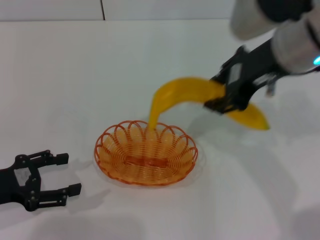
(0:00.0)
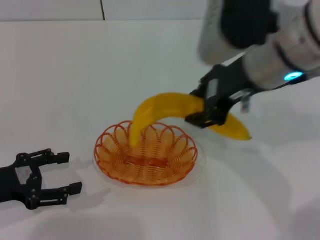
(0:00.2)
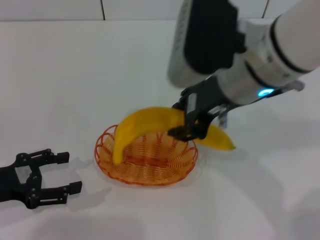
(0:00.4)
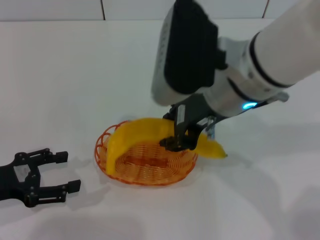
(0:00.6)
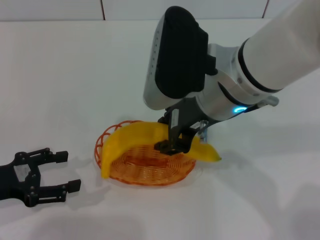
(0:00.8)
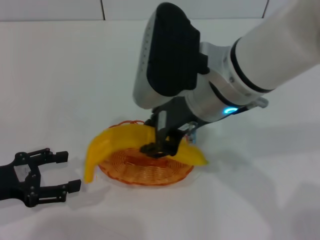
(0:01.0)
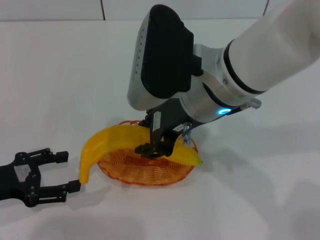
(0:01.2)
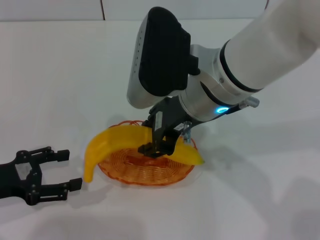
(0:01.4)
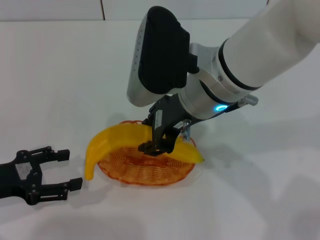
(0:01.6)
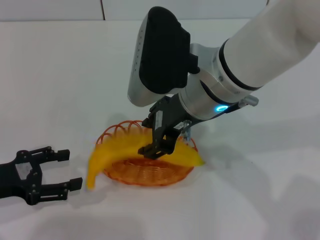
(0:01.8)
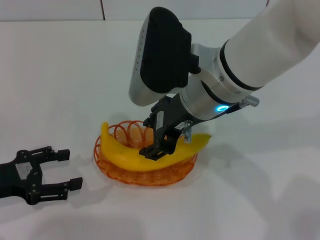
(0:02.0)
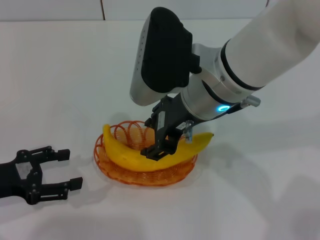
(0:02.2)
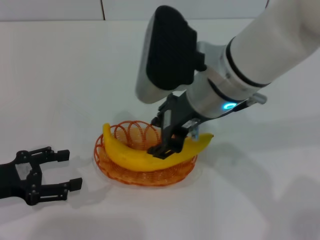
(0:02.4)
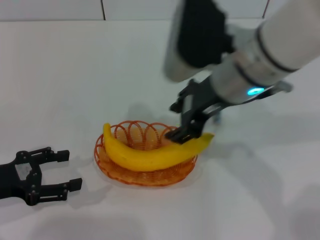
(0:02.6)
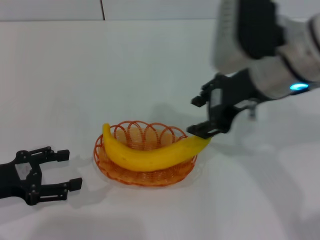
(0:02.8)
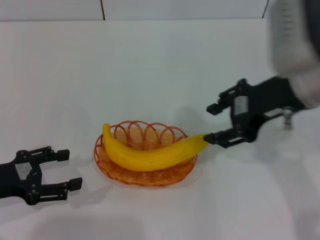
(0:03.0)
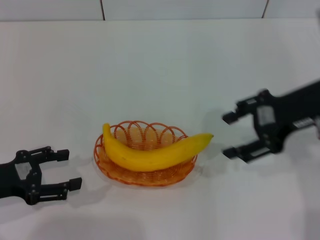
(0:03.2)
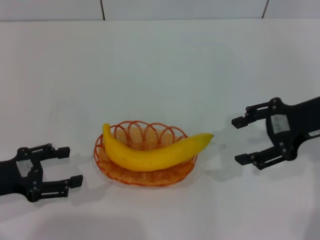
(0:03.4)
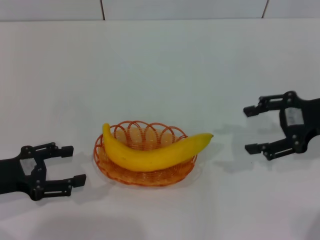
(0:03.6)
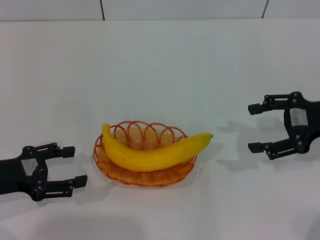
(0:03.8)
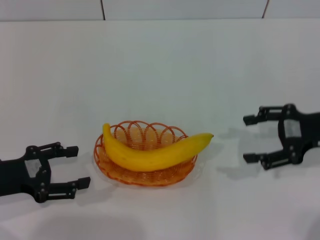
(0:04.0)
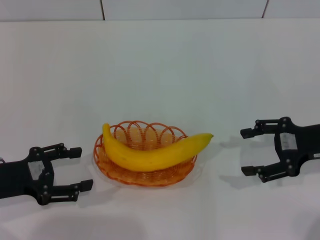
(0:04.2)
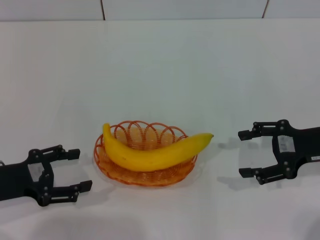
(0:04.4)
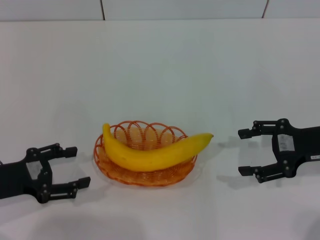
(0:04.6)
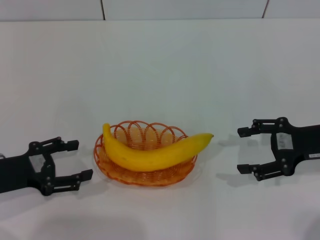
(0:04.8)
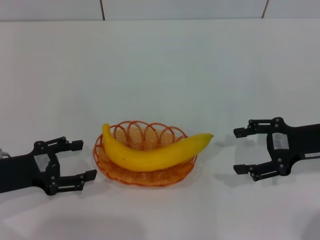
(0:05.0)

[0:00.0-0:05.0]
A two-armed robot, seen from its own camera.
Step, 0:00.0 to 0:03.6: Place the banana into the basket with the right gripper.
0:00.0 to 0:01.6: The right gripper shifts roughly 10 cm to the left and downward.
0:01.6 to 0:03.4: The right gripper travels to the right by some 20 cm, and opens.
0:03.4 to 0:05.0: The right gripper moves downward, about 5 cm.
